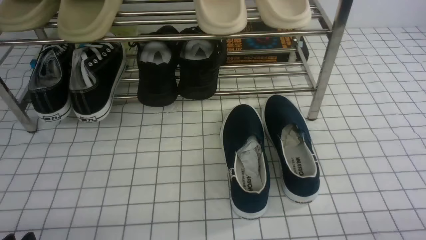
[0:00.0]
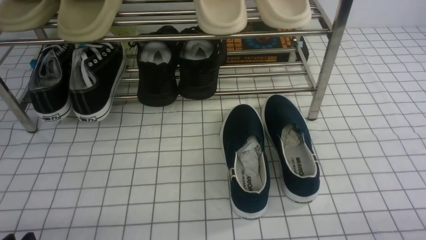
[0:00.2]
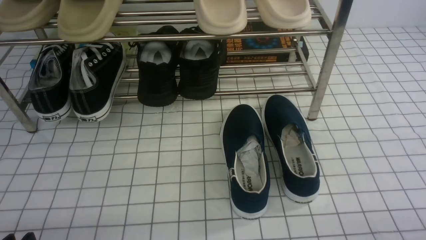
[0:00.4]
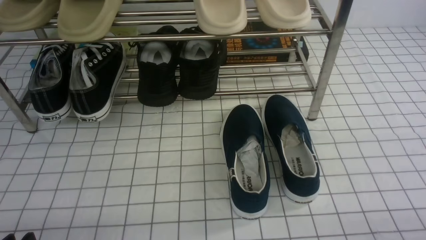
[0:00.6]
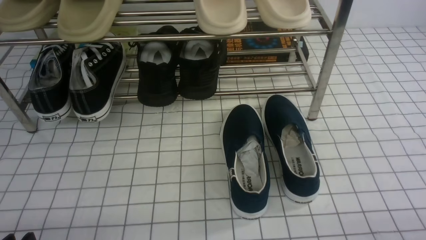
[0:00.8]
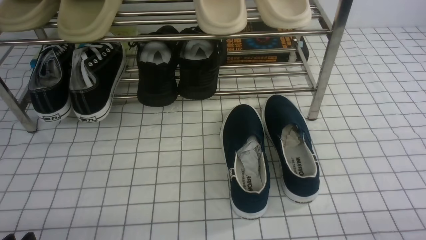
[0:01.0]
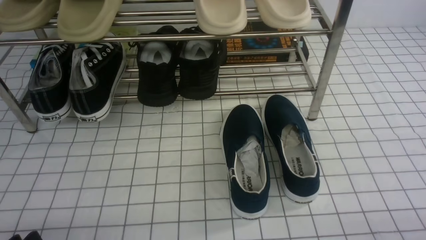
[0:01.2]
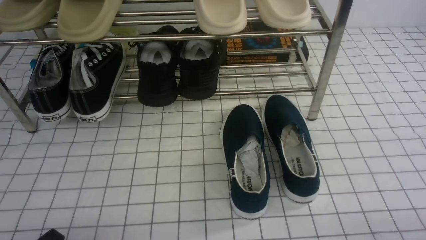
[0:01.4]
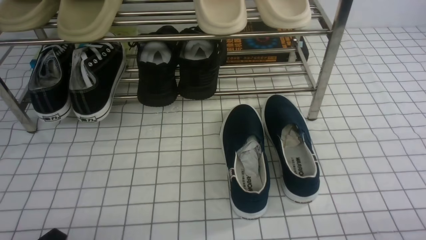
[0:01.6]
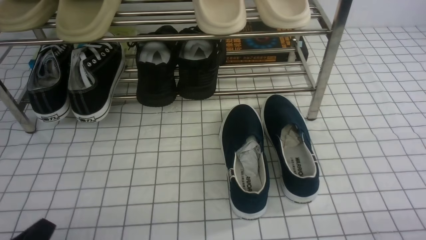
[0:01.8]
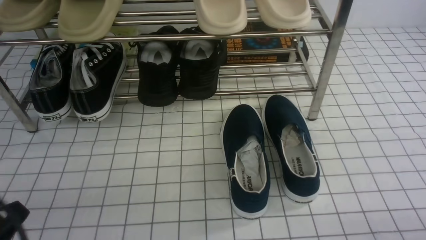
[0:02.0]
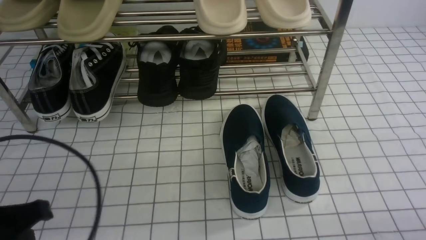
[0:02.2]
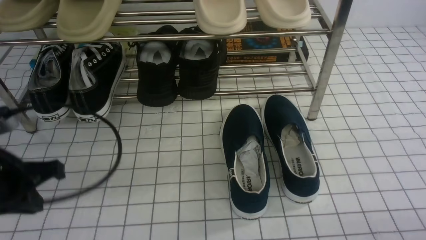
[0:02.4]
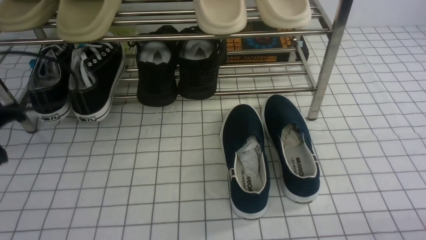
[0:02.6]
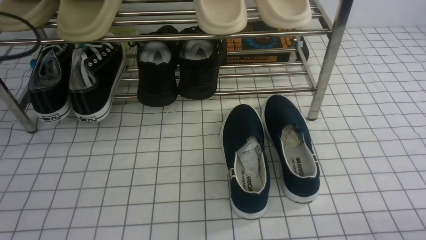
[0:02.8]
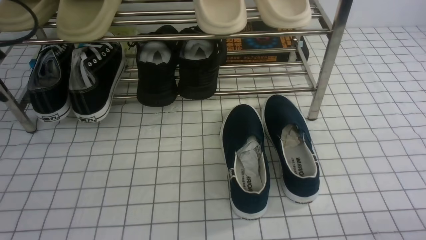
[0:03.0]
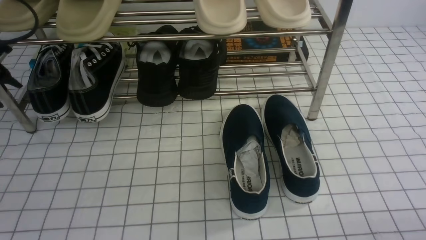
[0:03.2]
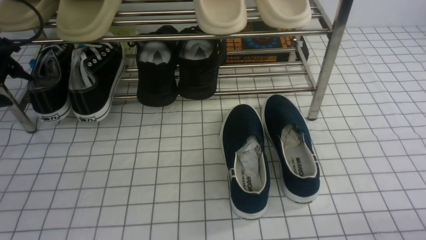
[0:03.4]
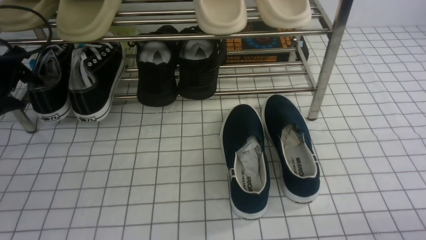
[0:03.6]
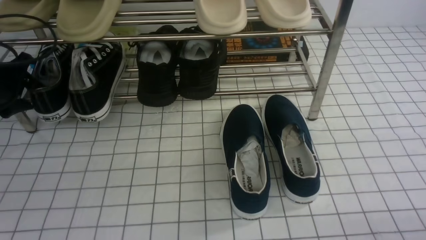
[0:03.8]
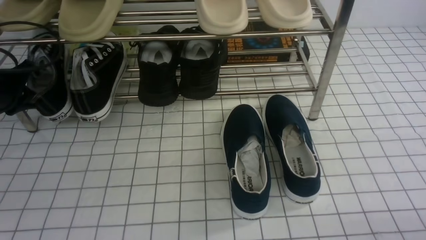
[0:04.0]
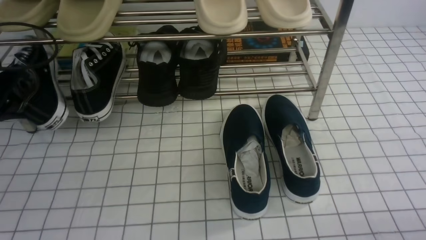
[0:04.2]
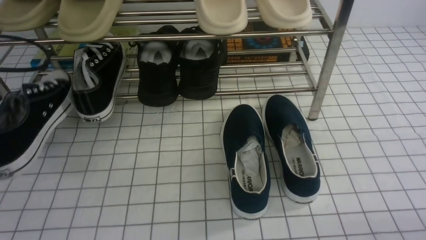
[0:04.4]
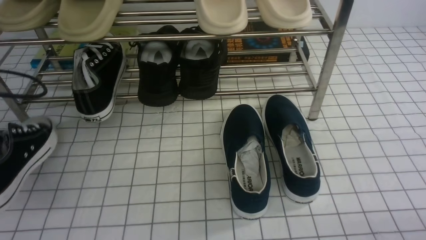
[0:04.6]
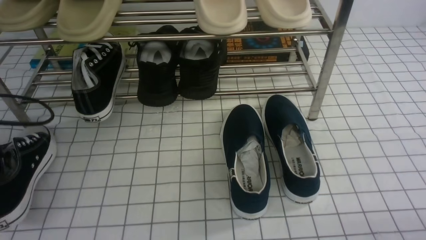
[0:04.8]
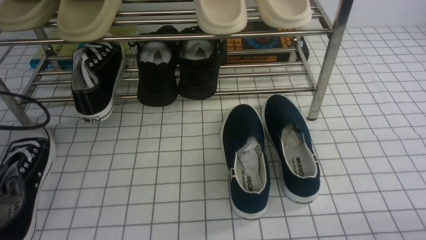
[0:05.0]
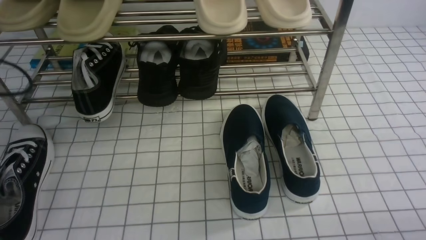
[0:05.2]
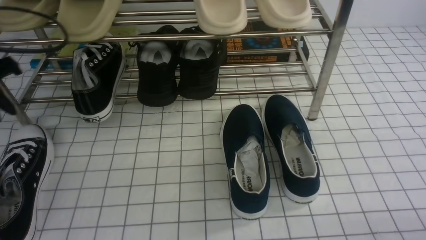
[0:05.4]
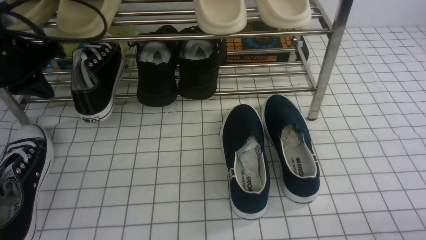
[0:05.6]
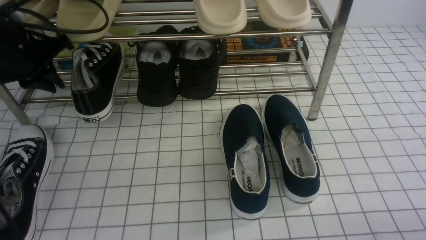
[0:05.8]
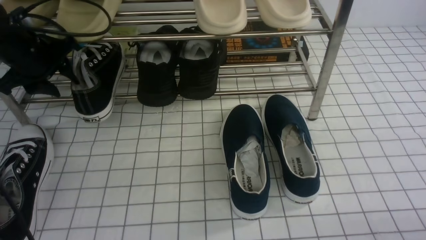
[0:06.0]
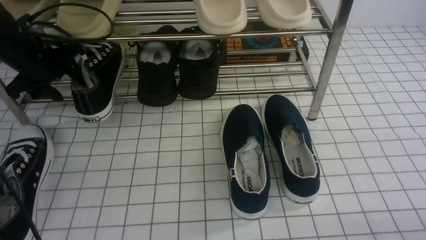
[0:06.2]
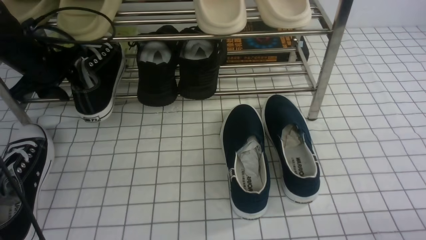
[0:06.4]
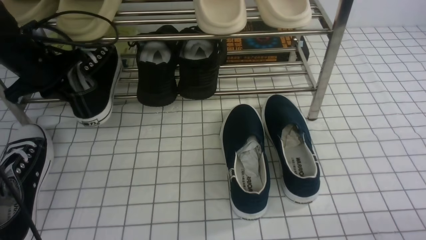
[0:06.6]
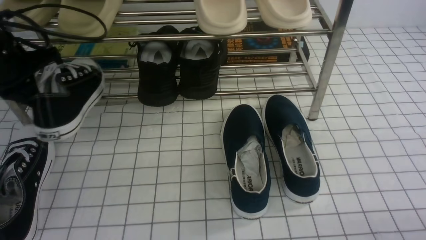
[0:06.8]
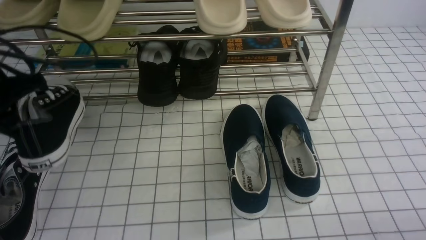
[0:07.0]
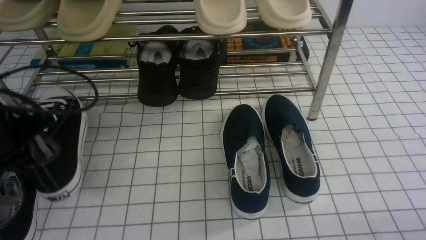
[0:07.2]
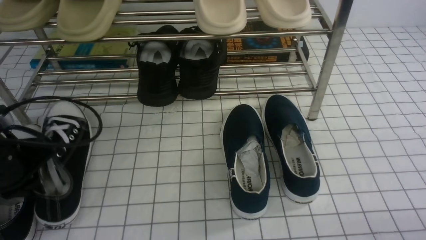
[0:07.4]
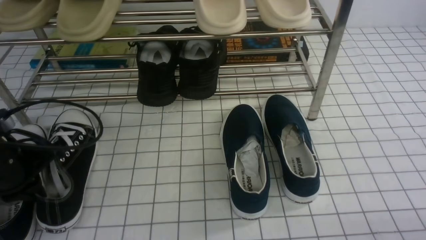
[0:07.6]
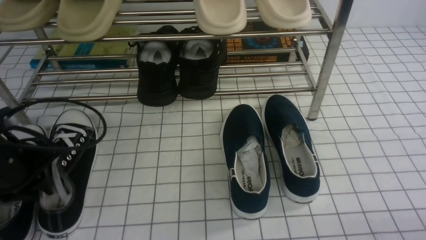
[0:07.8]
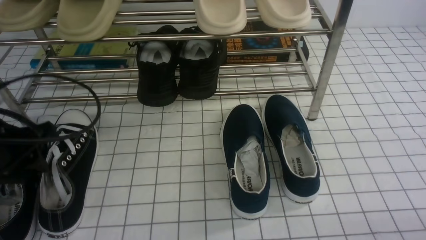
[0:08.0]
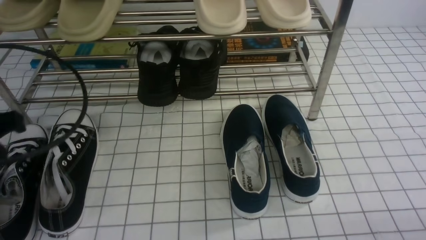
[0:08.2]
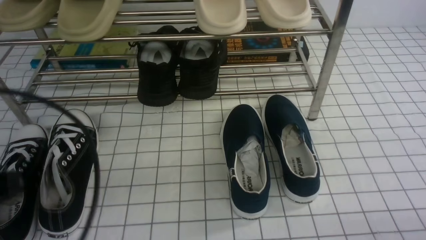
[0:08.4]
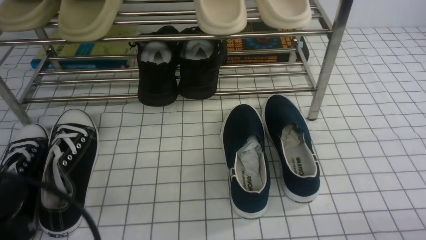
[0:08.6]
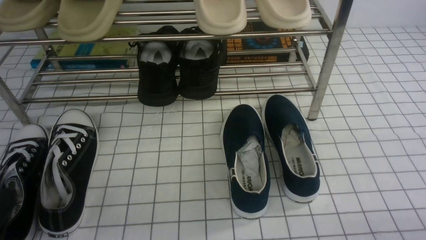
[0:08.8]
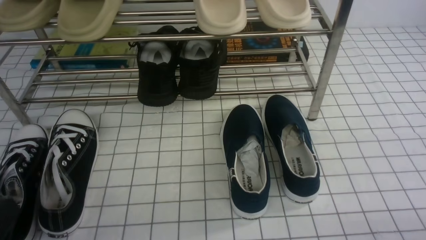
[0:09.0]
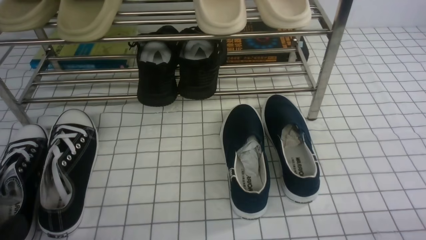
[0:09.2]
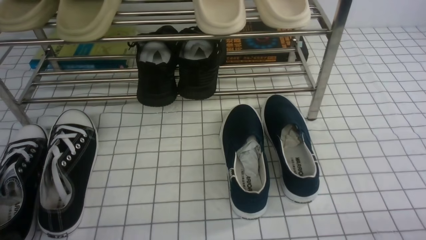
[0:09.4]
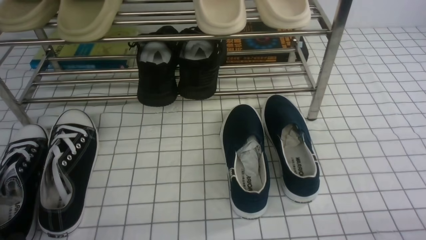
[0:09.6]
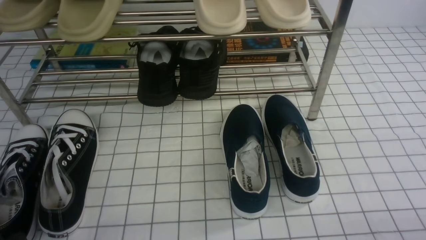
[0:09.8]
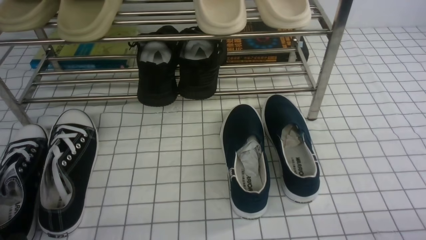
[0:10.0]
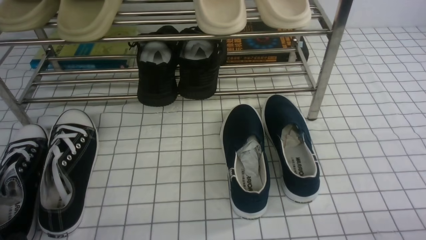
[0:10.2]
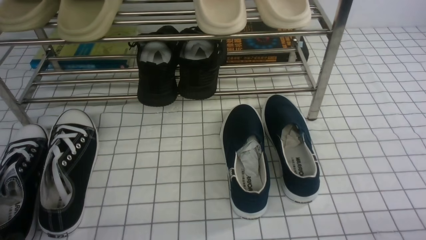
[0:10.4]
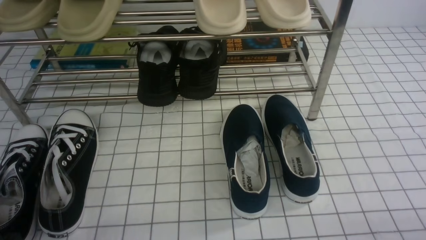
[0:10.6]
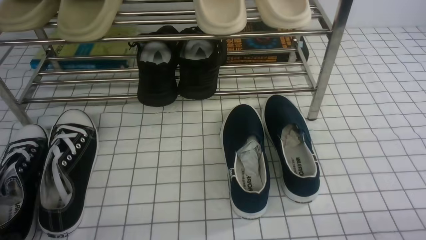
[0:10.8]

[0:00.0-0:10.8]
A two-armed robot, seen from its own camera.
Step, 0.0 to 3.8 s: use the left arm to clamp a shoe on the left side of the shoe rack.
Step, 4.0 to 5.2 s: Use your left arm to remove the clamped shoe from the shoe rack and put it down.
Step, 5.4 to 6.4 s: use the left arm to clamp a shoe on the left side of the shoe rack.
Step, 6.6 to 8.2 s: Use your left arm to remove the clamped shoe from the shoe rack and put it down.
1.6 to 3.0 s: The left gripper travels forward, upward and to the left by about 30 cm, and closes, then reopens.
3.0 to 4.6 s: The left gripper travels backward by approximately 5 cm, and closes its fingers.
4.6 to 6.2 s: The left gripper heads forward and to the right, covering some 20 cm, and opens its fingers.
6.2 to 7.8 s: The left gripper moves backward, roughly 15 cm, and closes up.
7.8 to 9.2 s: The left gripper shifts about 20 cm backward, and closes up.

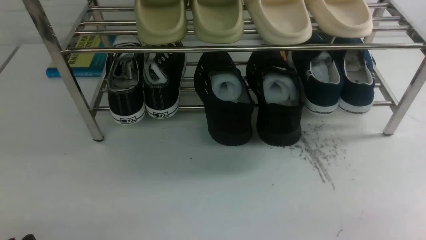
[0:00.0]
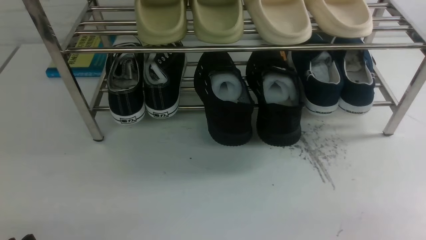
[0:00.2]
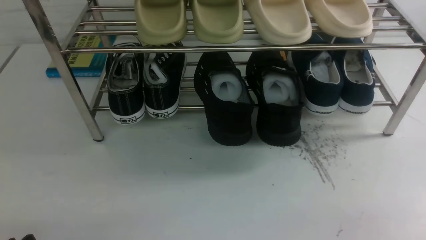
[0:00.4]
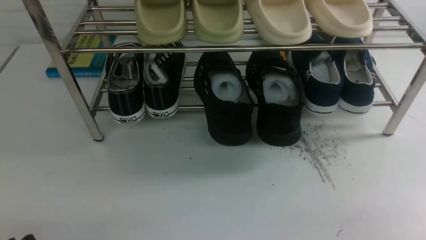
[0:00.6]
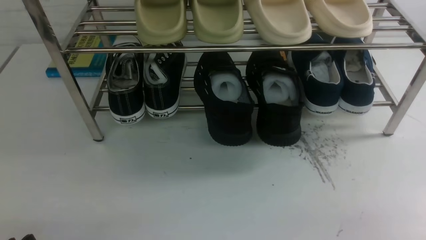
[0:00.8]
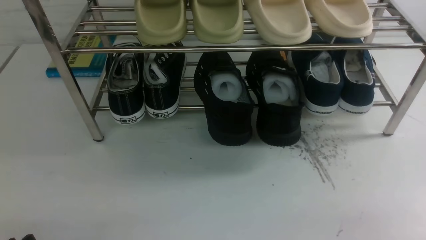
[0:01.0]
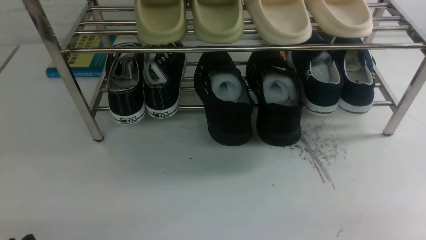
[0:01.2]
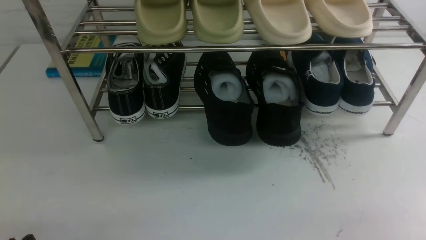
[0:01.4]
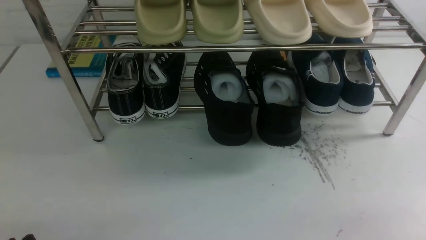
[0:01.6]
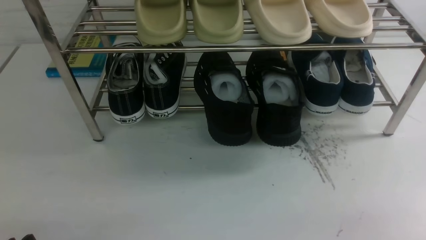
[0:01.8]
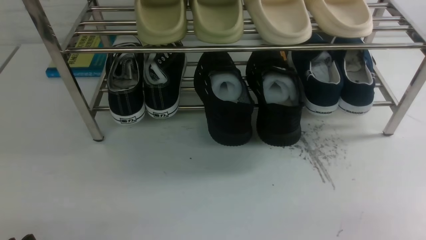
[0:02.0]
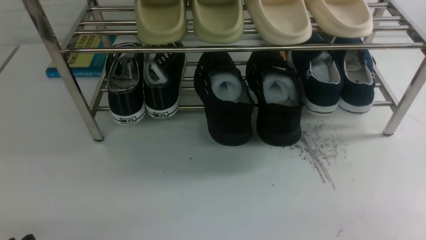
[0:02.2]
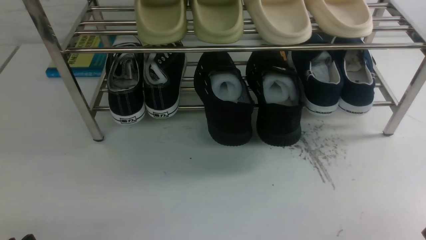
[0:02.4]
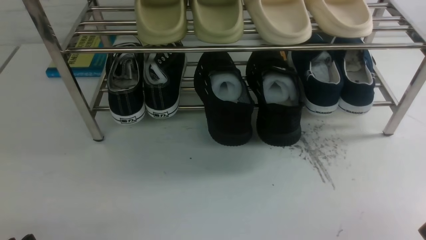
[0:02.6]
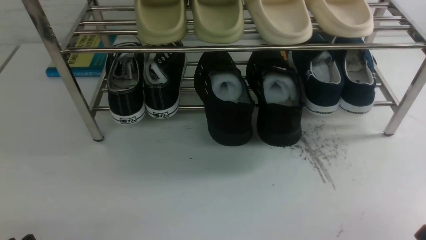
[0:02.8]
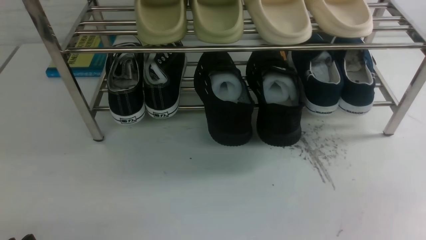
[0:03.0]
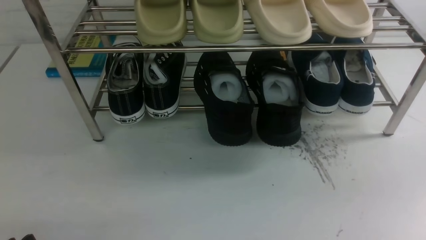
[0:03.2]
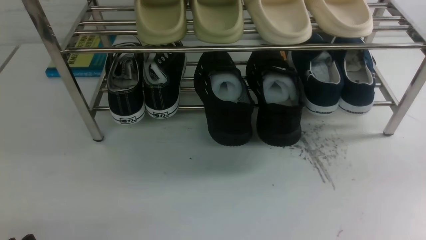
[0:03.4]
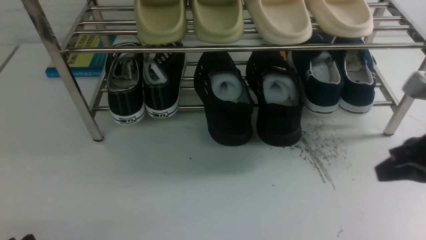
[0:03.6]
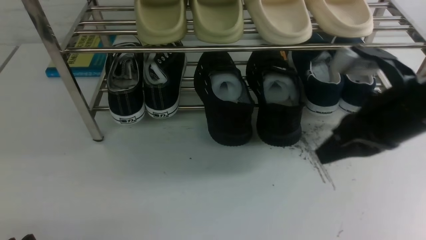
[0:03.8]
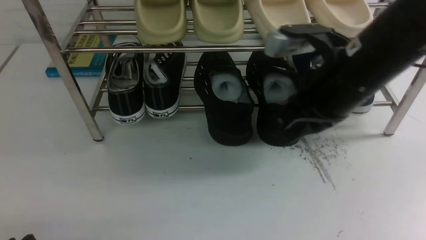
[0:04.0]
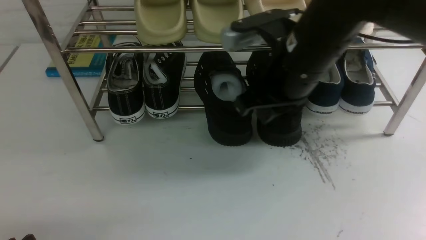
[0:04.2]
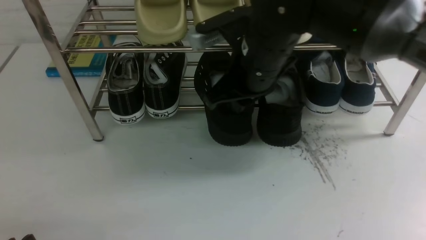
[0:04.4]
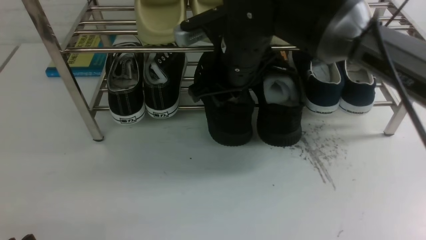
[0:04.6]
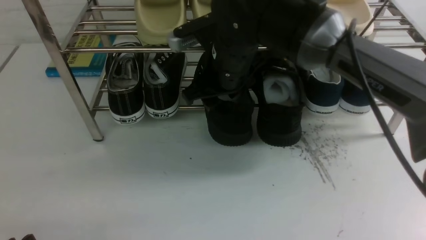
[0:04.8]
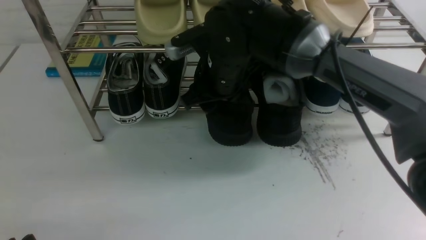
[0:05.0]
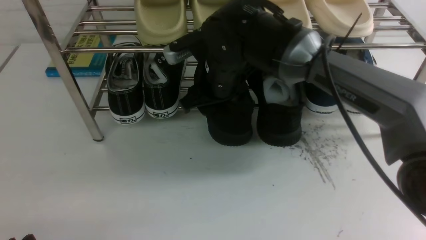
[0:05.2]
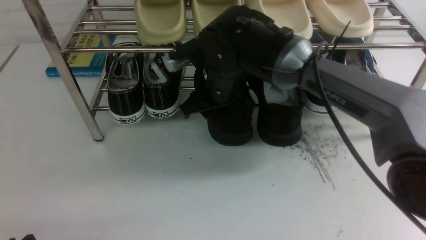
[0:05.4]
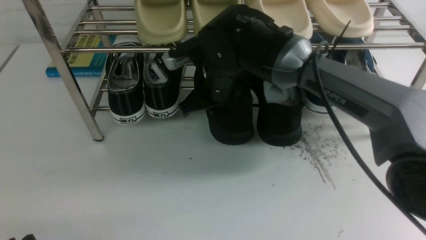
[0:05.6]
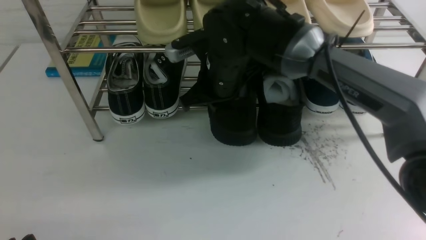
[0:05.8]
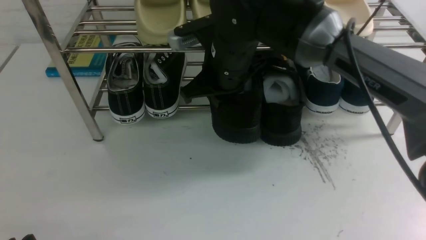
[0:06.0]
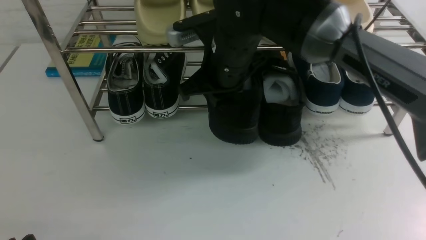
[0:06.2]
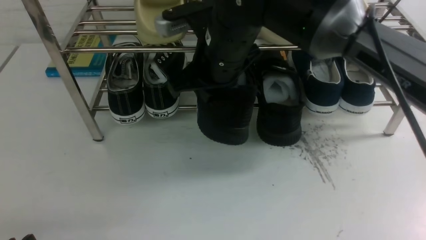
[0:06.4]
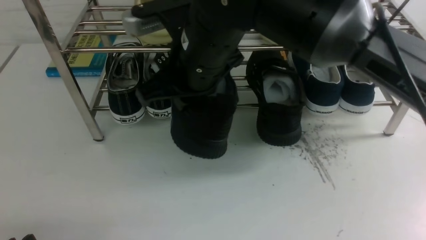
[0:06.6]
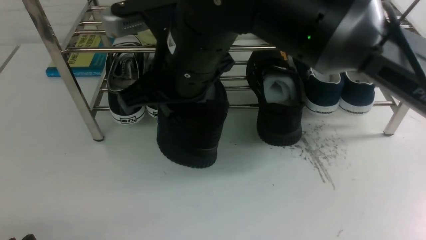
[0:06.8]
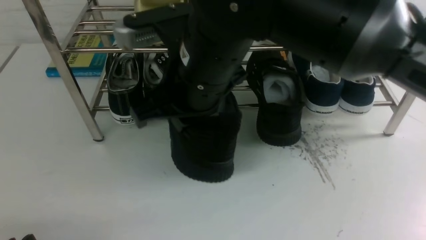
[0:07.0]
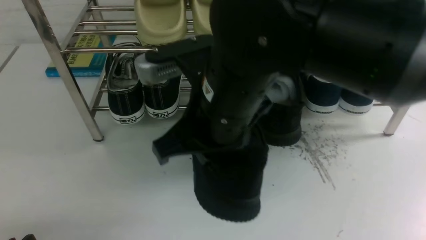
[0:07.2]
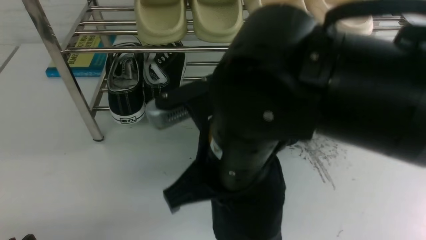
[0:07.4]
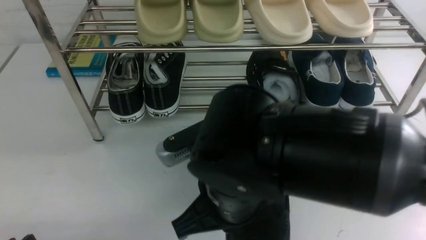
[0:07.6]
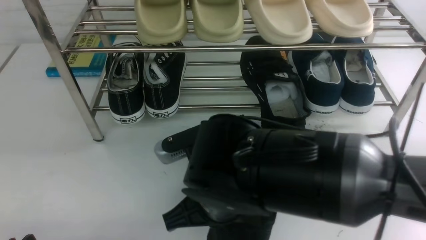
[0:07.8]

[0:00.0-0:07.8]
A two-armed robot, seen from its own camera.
Step, 0.0 to 6.0 s: Hold the shoe in the middle of the shoe rack with your right arm.
0.0 to 1.6 s: Both grippers stay about where they are.
3.2 to 4.6 s: The right gripper heads to the left and forward, covering roughly 35 cm, and opens its fingers.
4.6 to 6.2 s: The right gripper closes its fingers.
6.2 to 7.8 s: The right gripper shifts some 20 cm backward and downward.
